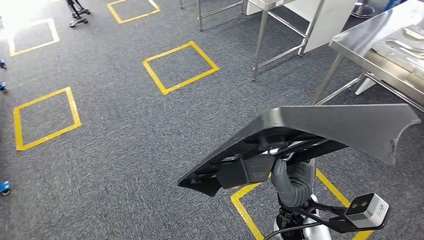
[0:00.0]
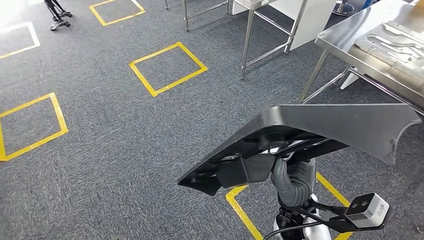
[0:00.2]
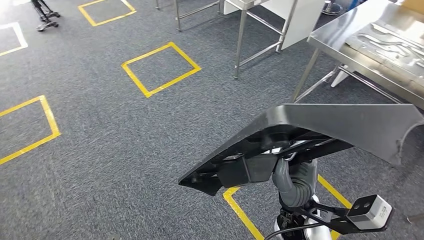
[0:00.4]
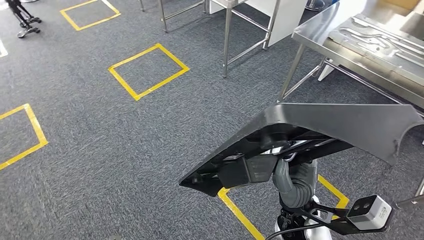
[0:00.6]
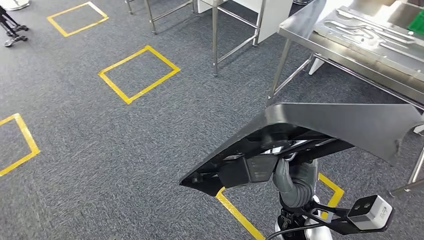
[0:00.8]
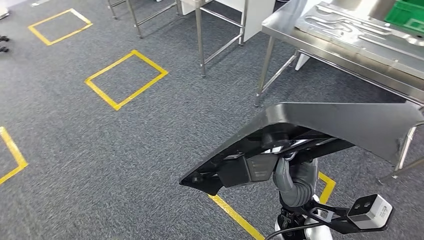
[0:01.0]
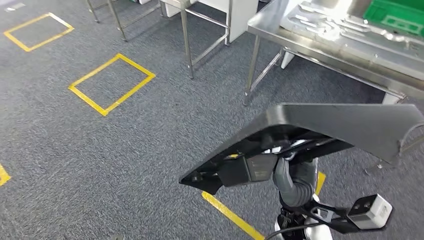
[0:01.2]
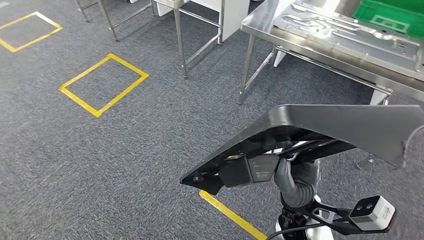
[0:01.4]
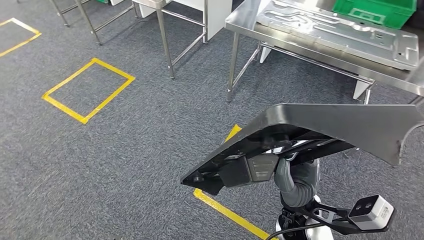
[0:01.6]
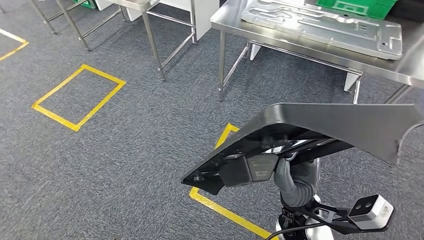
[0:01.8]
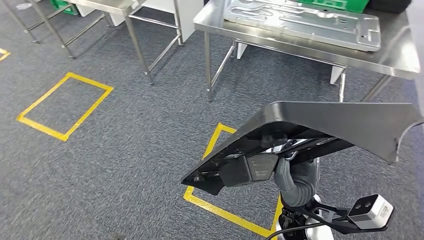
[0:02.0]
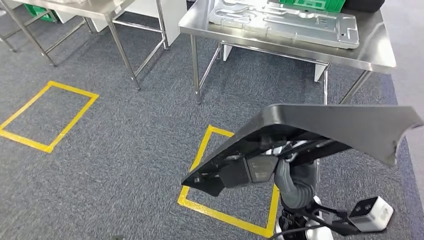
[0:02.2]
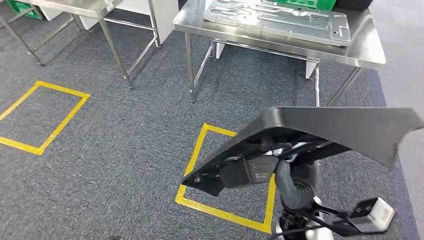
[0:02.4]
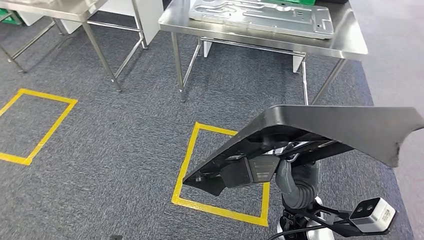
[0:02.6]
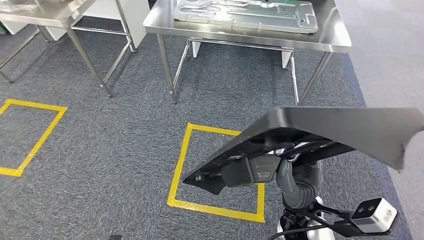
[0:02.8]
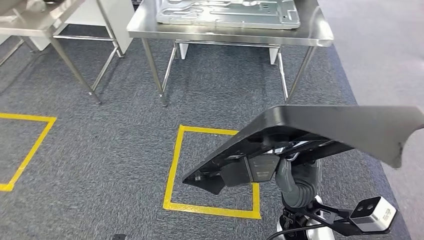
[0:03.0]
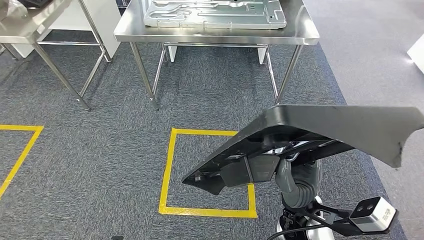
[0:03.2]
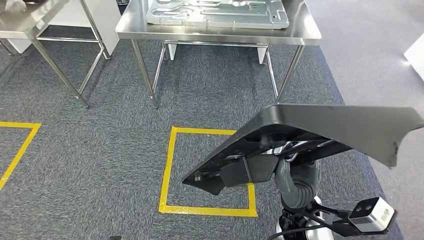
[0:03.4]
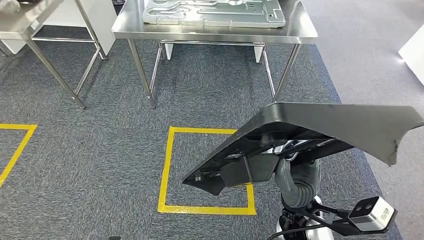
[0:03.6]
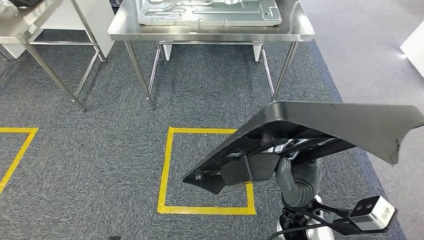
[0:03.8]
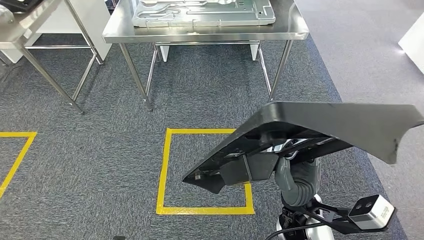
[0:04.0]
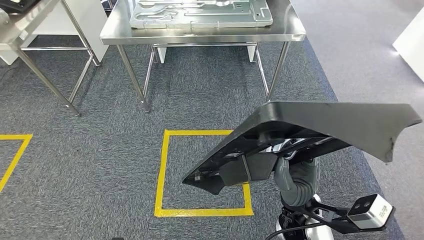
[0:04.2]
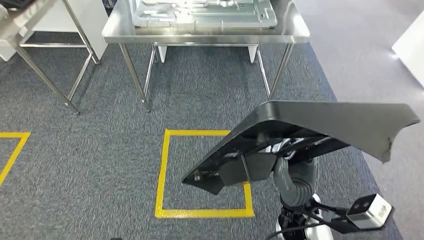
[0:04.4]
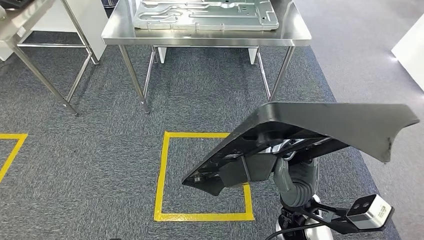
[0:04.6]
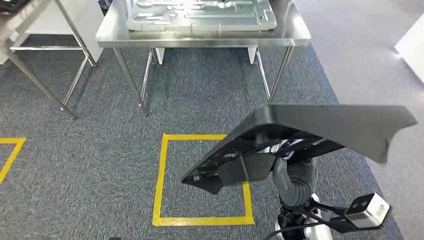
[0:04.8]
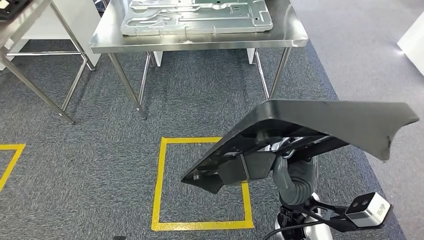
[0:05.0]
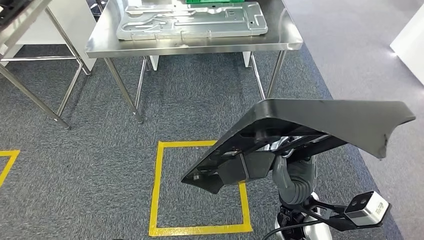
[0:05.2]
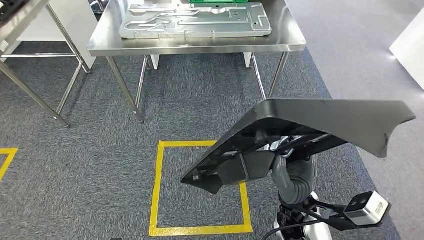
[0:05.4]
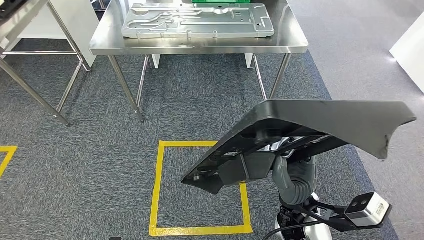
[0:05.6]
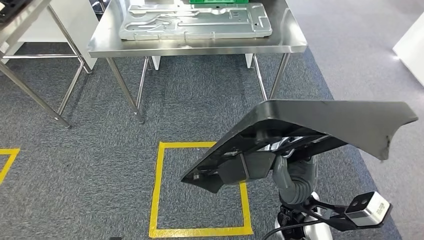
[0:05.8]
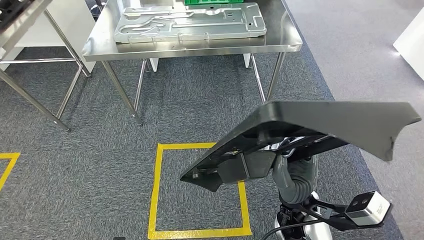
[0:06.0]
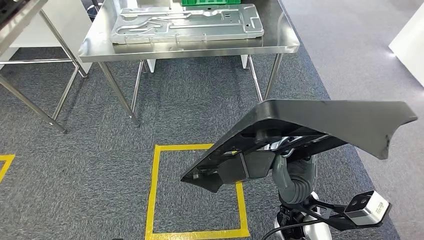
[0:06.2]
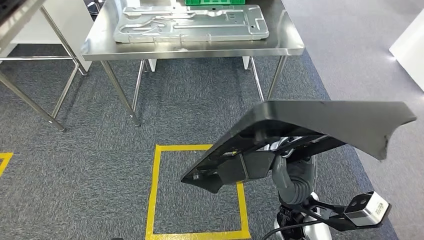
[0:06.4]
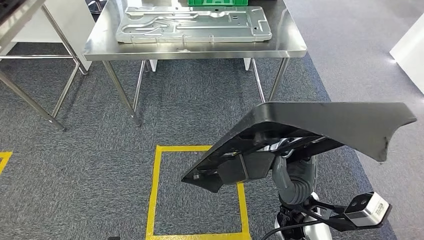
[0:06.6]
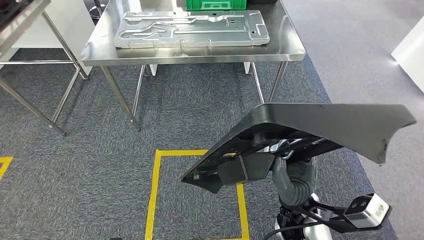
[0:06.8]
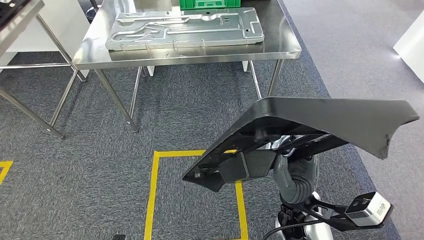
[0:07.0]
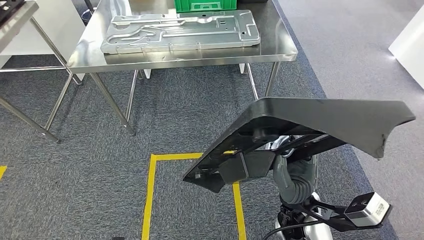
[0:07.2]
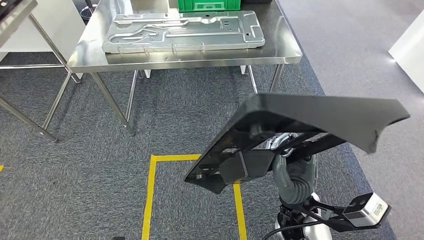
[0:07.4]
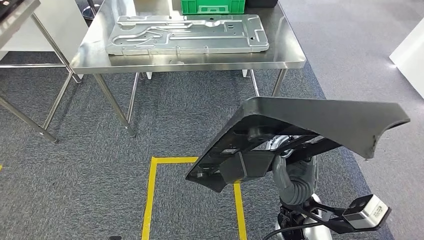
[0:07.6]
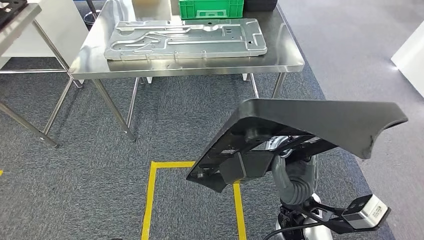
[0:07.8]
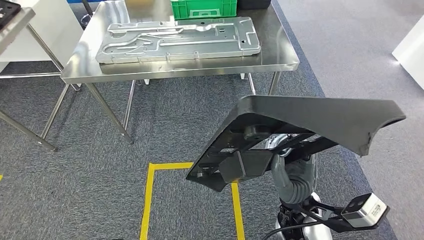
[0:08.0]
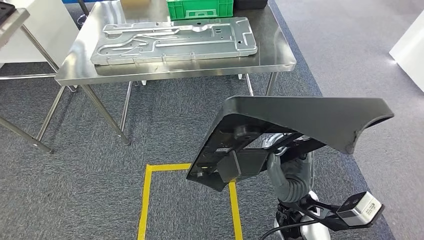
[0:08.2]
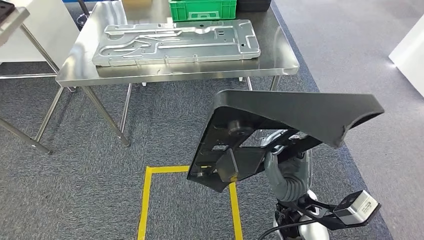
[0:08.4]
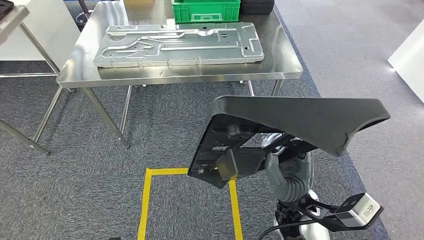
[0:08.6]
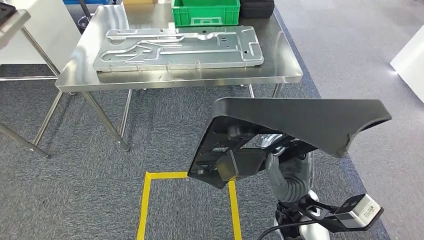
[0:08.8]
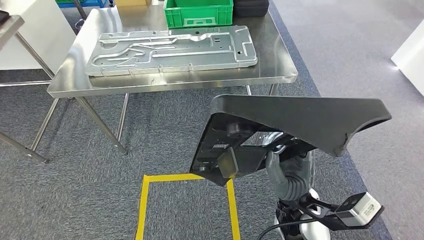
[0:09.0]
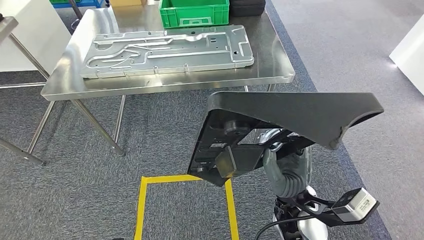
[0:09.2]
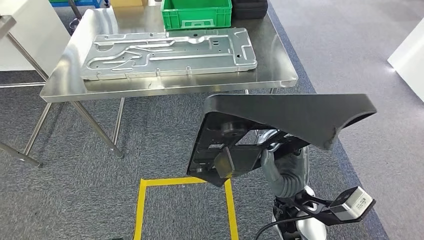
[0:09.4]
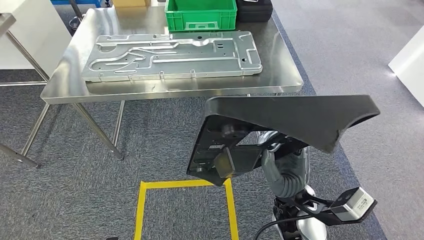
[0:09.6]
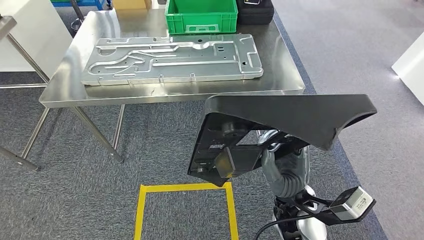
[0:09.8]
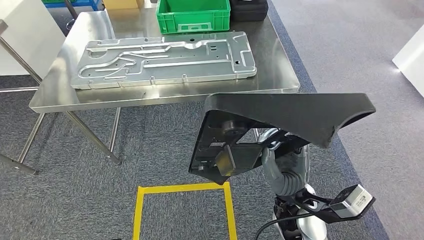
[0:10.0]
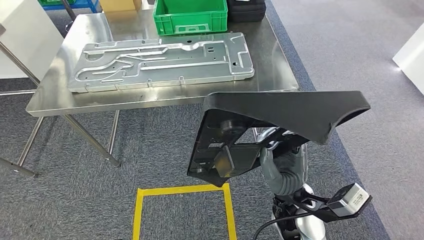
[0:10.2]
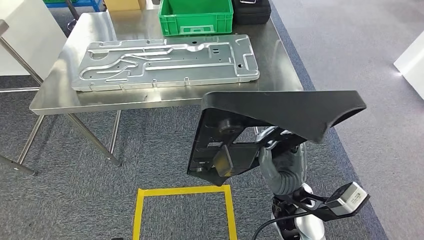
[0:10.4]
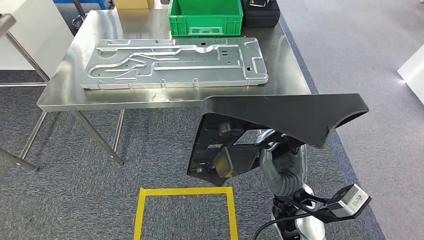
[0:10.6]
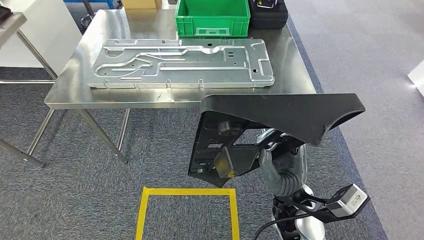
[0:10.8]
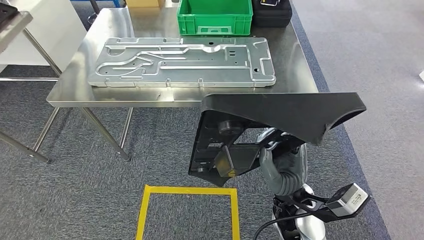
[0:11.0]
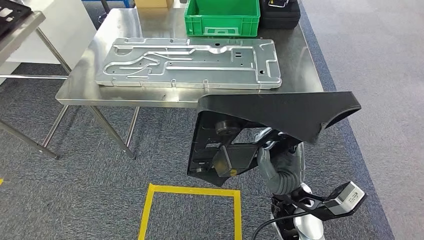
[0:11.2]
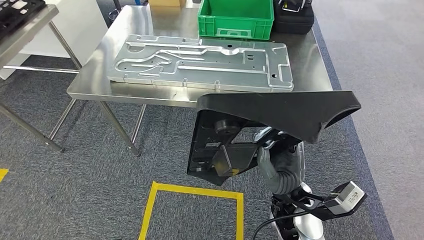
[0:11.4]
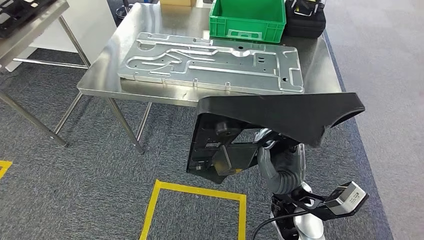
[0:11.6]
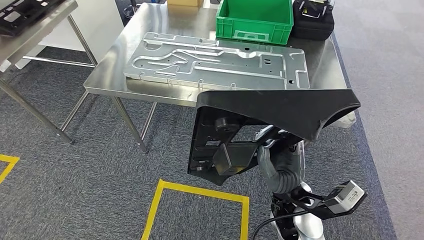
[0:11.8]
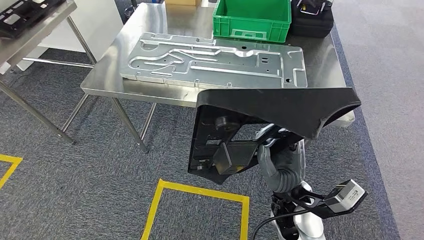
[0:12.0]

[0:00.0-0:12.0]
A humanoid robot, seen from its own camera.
Step, 0:00.0 to 0:11.2: Move the large material to the workbench.

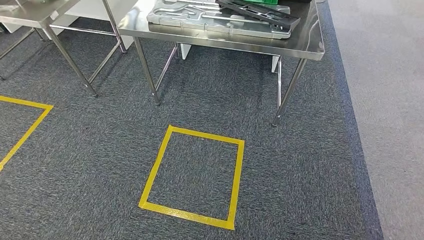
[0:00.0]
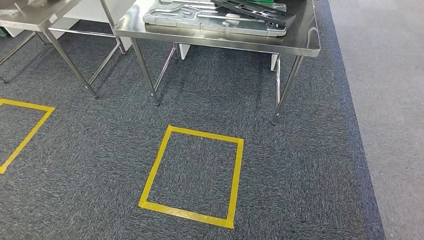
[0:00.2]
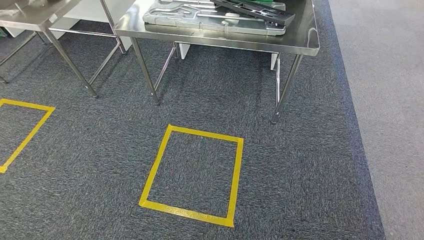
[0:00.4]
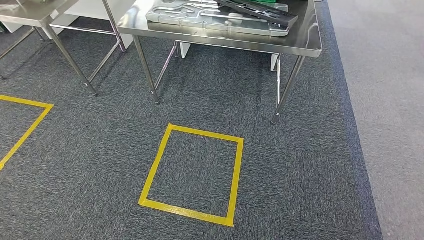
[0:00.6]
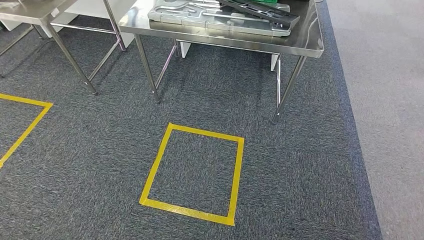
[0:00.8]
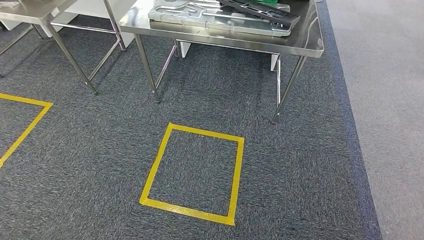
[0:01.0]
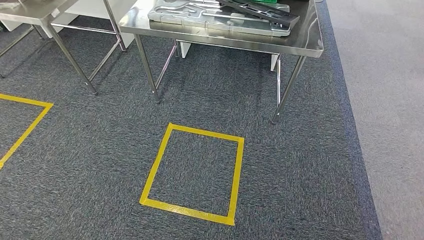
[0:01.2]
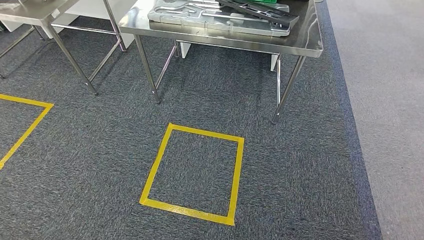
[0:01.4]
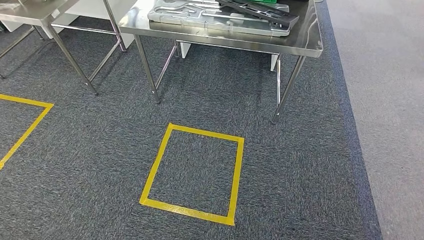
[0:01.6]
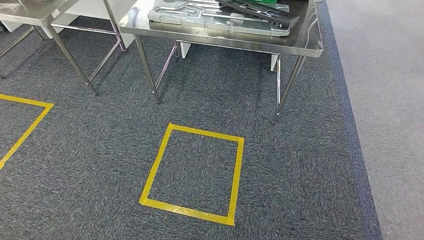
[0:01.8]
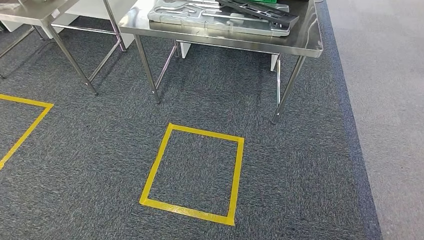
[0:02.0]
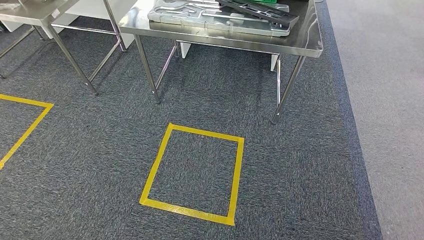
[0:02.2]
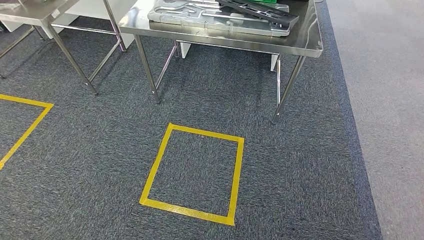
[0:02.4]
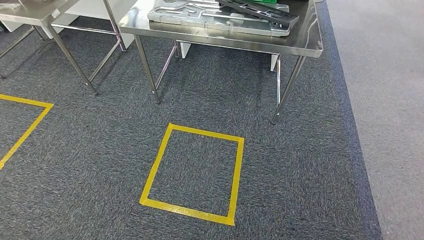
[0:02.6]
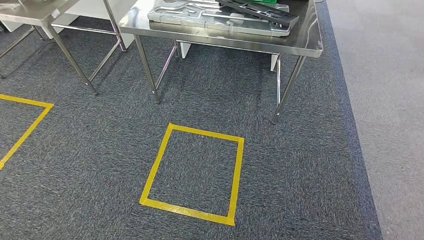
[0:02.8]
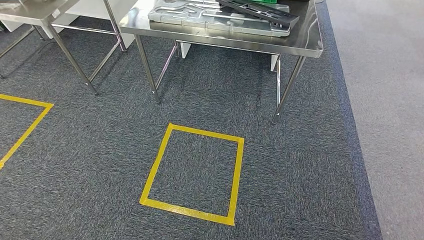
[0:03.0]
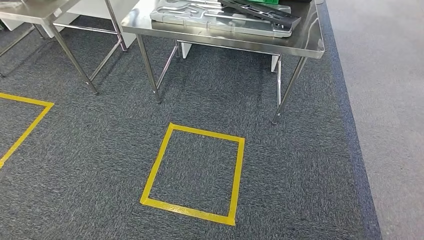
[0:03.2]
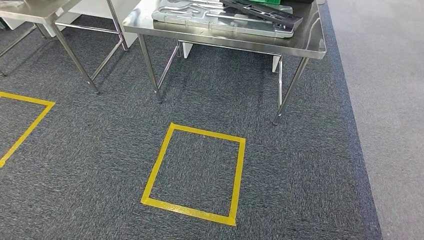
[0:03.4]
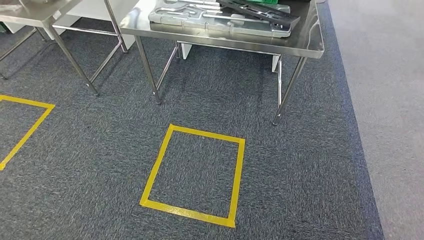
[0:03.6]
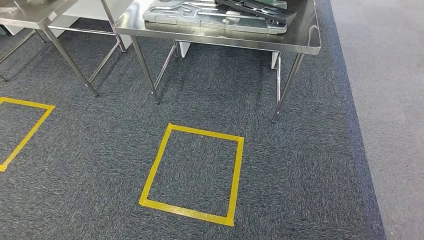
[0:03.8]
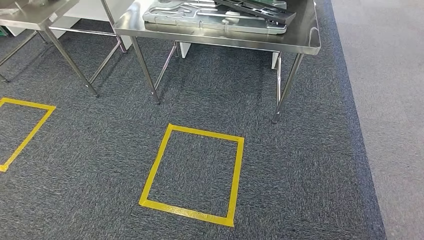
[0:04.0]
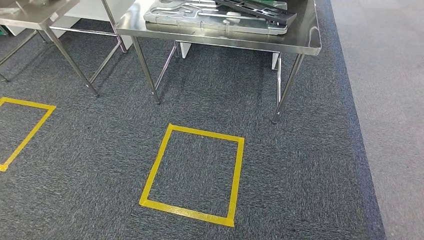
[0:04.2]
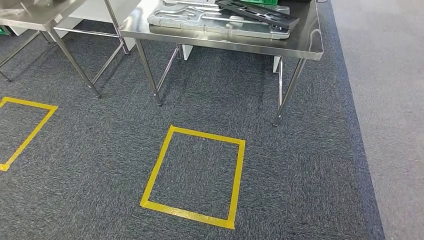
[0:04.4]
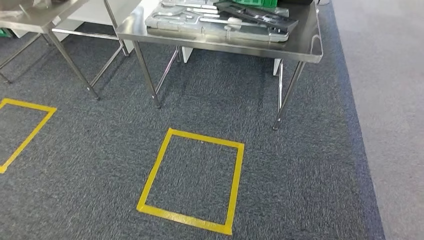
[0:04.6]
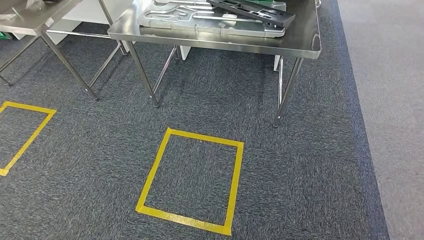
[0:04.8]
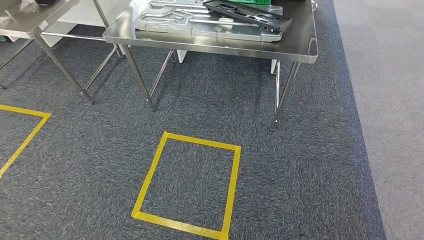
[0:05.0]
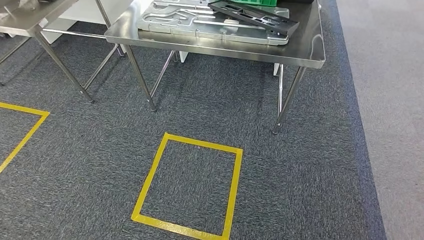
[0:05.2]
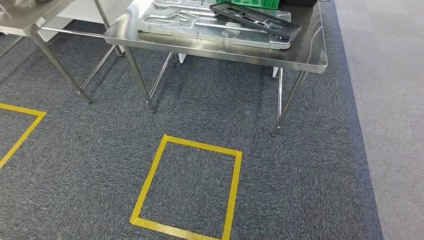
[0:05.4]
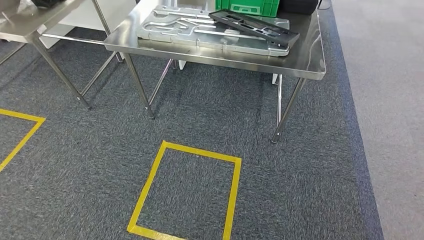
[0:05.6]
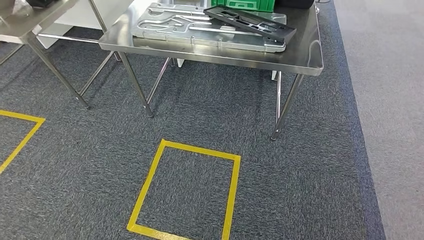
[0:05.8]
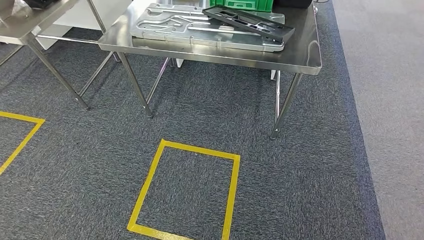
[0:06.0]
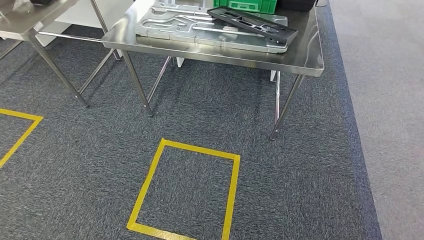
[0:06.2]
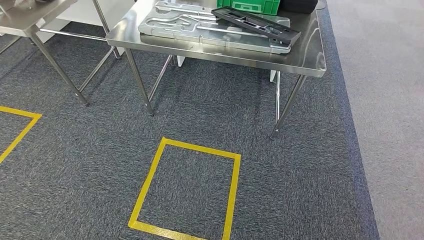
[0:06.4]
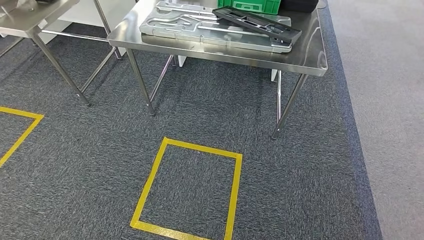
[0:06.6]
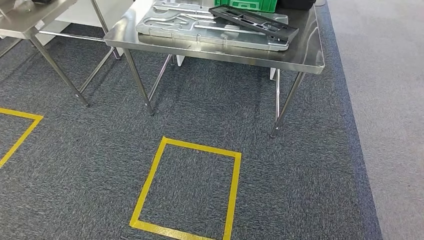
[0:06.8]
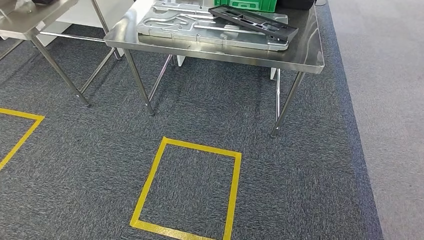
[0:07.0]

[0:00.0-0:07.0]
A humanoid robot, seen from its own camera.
0:00.0 to 0:01.4: The hands stay close to where they were, moving slightly.
0:02.8 to 0:04.2: Neither hand changes place.
0:04.2 to 0:05.6: There are only small adjustments of the hands.
0:05.6 to 0:07.0: Both hands stay put.
